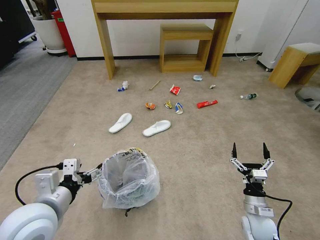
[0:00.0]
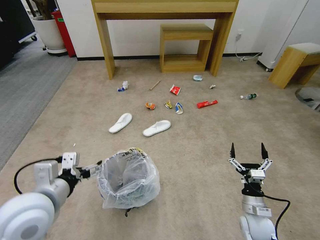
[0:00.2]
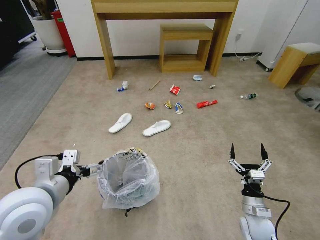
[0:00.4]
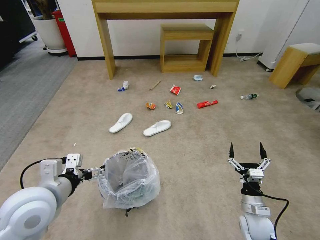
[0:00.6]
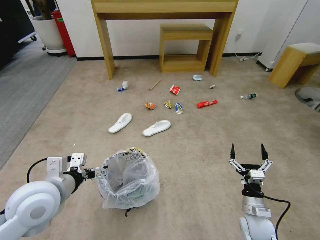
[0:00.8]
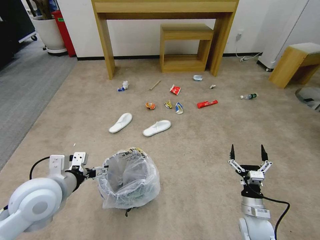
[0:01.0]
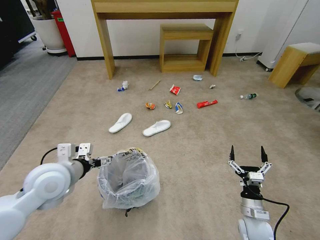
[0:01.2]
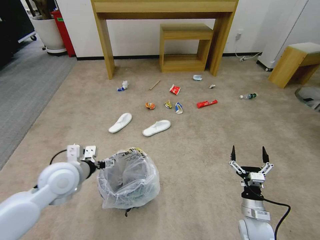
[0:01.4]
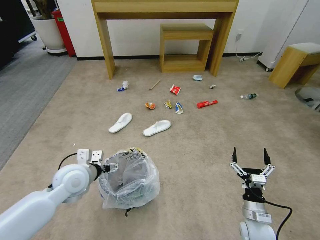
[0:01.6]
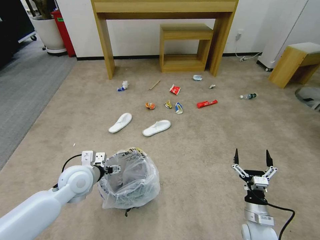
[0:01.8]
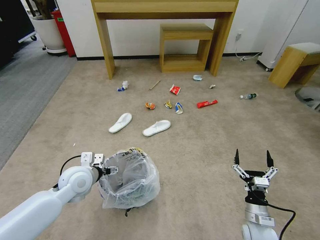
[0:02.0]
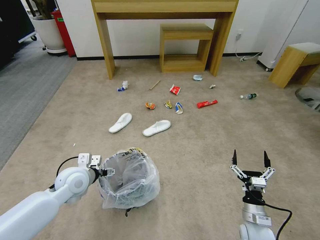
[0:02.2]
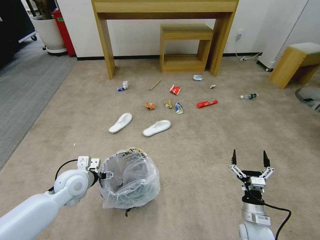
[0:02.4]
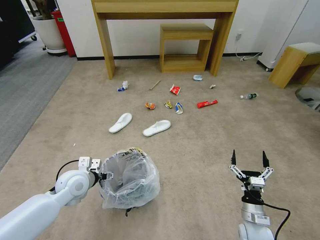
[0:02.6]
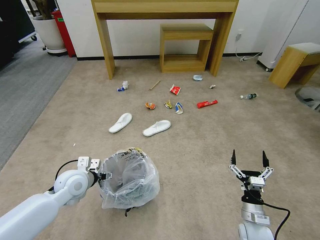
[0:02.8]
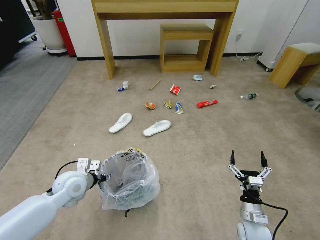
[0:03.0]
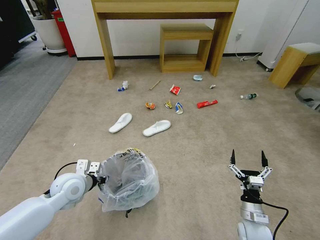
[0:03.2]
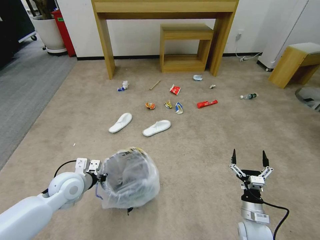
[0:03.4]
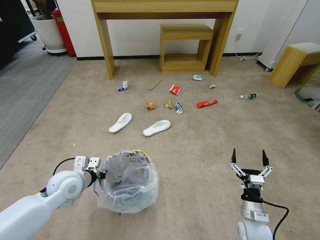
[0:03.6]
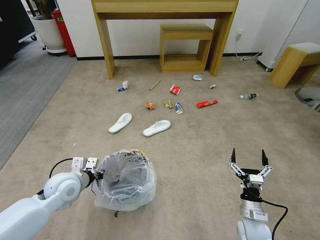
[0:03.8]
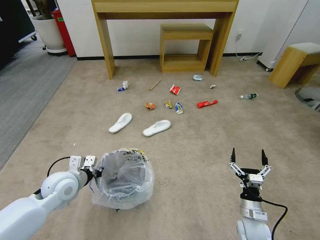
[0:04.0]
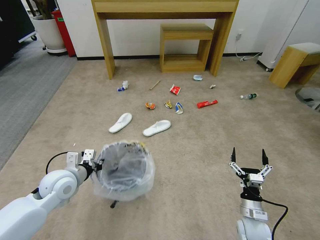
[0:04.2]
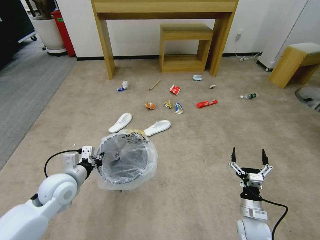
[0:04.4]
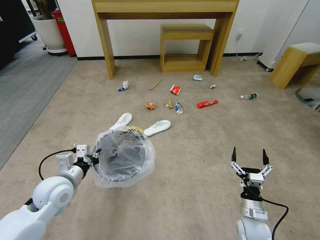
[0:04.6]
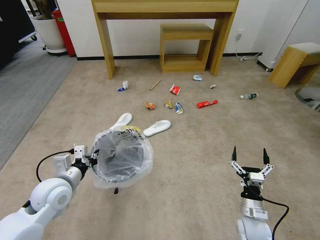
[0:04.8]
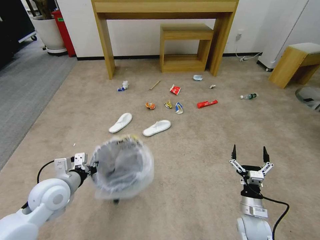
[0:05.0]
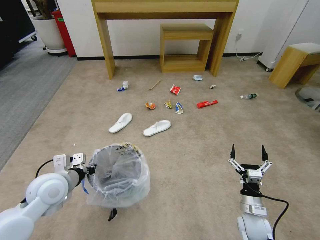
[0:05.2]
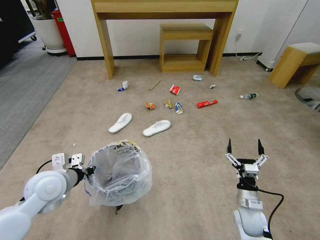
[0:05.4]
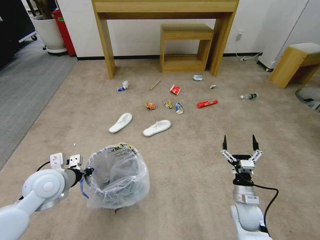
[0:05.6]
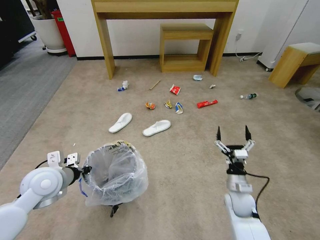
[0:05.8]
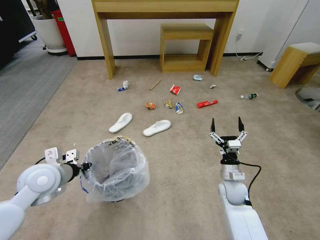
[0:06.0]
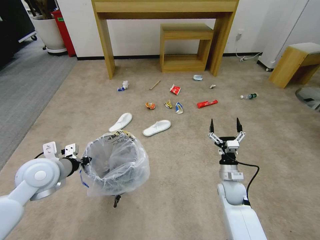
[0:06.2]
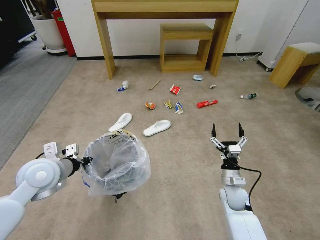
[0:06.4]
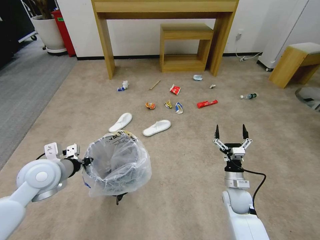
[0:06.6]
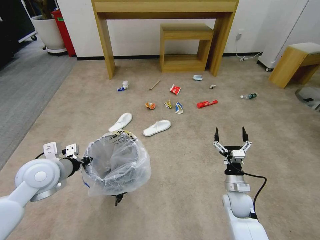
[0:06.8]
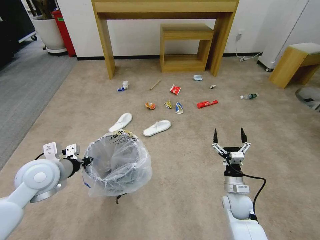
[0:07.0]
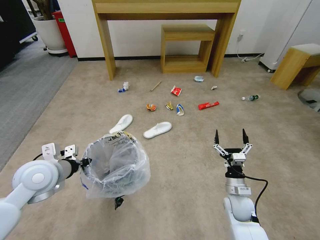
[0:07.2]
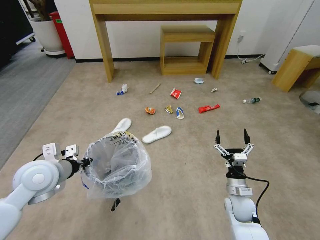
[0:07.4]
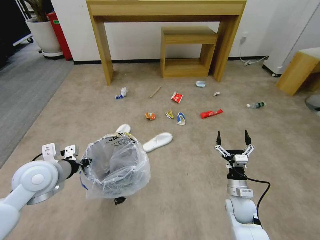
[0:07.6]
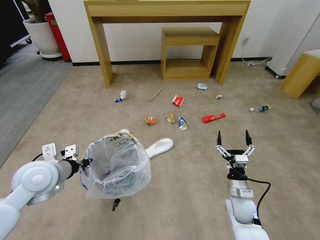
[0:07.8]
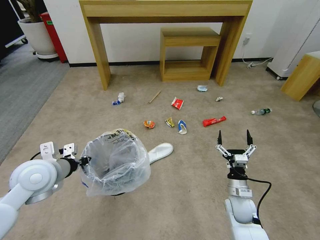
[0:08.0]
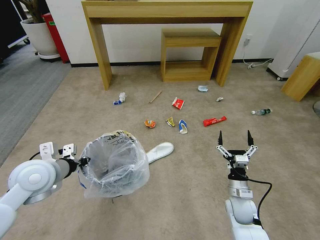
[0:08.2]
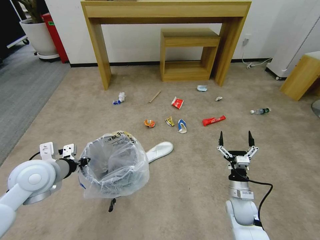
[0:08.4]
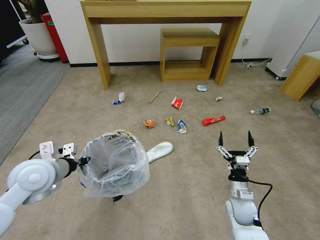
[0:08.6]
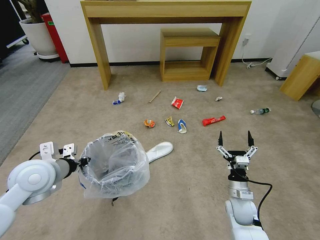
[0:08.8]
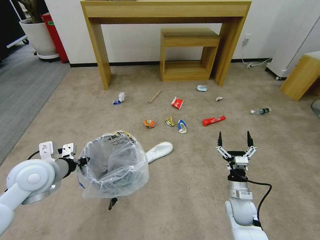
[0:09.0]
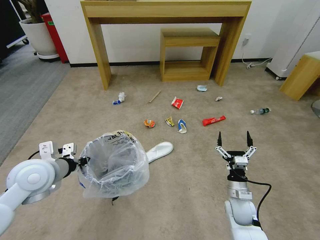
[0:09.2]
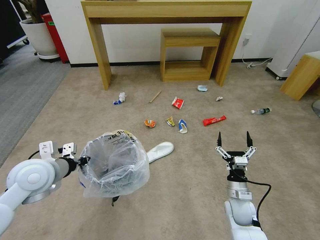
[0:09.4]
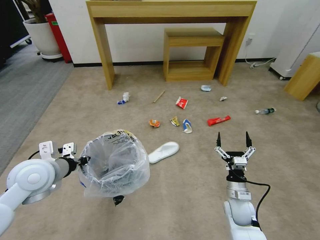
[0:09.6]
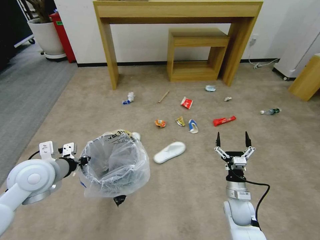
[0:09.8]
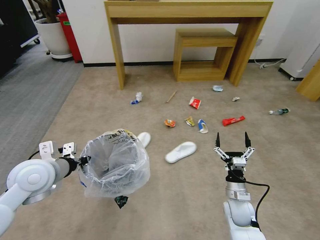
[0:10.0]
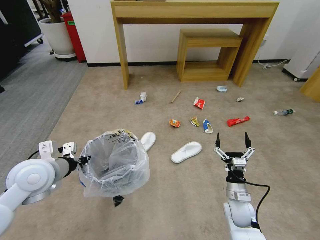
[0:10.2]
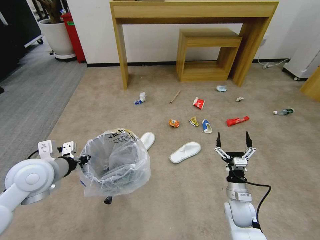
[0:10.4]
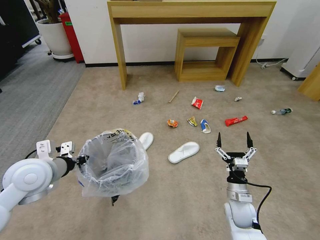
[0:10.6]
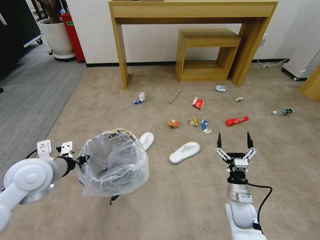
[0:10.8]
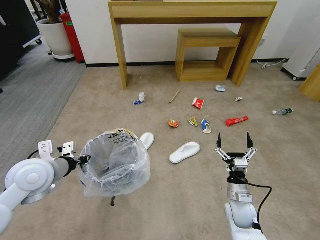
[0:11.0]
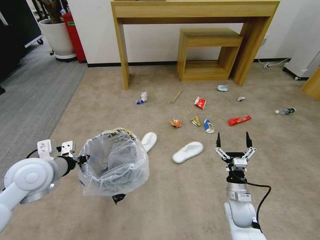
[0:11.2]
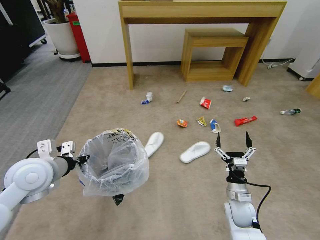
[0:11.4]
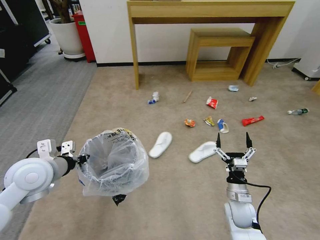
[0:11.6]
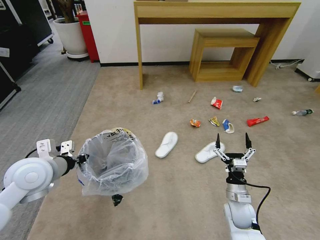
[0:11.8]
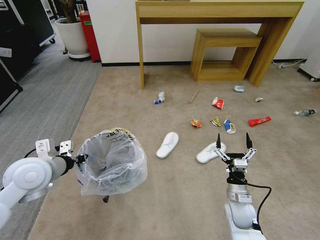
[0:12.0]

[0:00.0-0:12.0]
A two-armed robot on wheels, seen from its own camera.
Task of the whole recording: Pick up the trash bin and place the garbage on the floor into it.
0:00.0 to 0:01.6: The left gripper shifts some 15 cm forward and downward.
0:01.6 to 0:03.0: The left gripper travels downward by approximately 5 cm, and closes.
0:03.0 to 0:04.4: The left gripper closes up.
0:04.4 to 0:06.0: The left gripper moves approximately 5 cm. The right gripper travels forward by some 10 cm.
0:07.6 to 0:09.0: Neither gripper changes place.

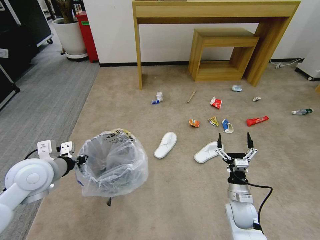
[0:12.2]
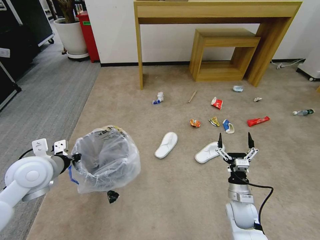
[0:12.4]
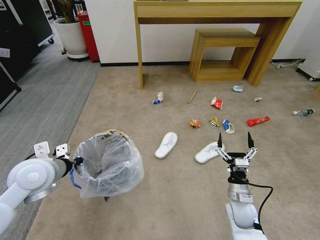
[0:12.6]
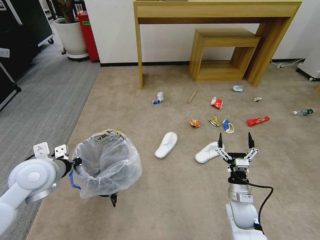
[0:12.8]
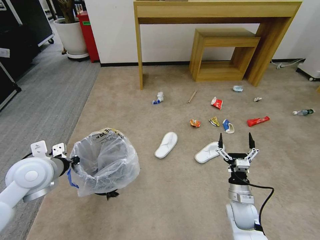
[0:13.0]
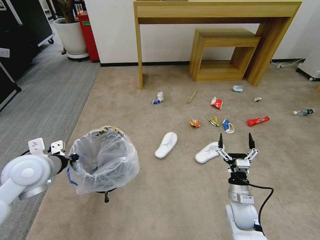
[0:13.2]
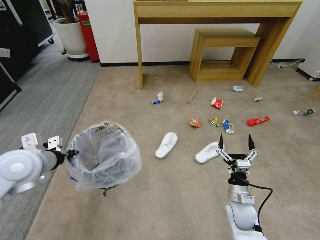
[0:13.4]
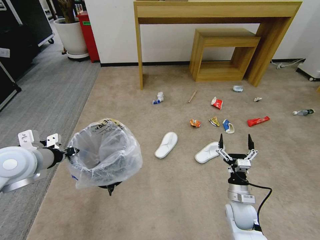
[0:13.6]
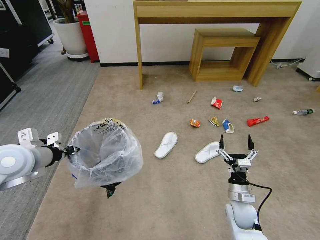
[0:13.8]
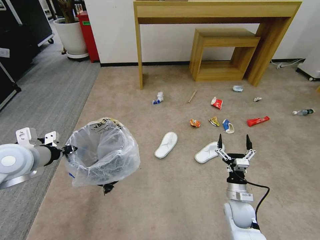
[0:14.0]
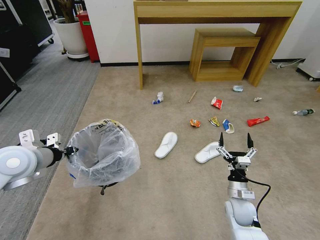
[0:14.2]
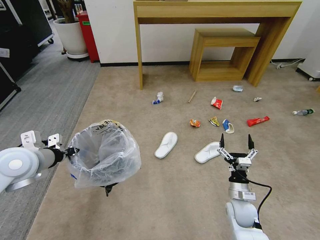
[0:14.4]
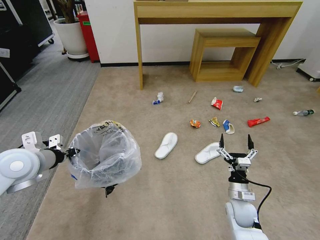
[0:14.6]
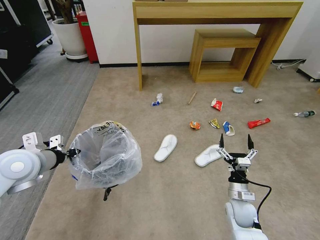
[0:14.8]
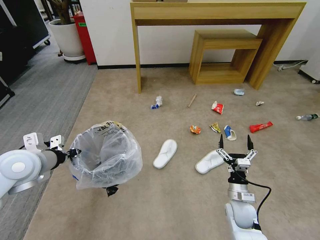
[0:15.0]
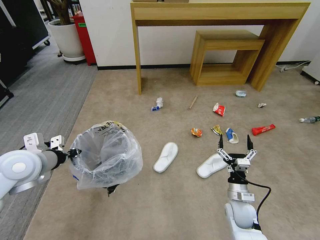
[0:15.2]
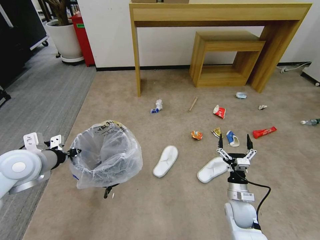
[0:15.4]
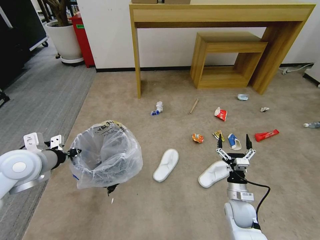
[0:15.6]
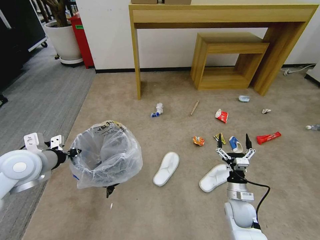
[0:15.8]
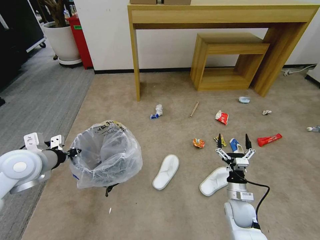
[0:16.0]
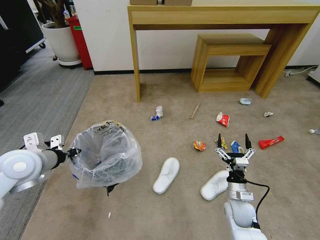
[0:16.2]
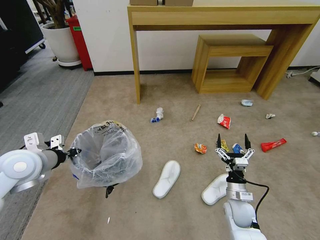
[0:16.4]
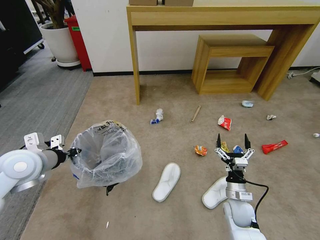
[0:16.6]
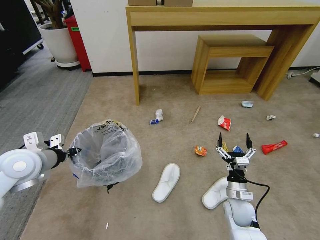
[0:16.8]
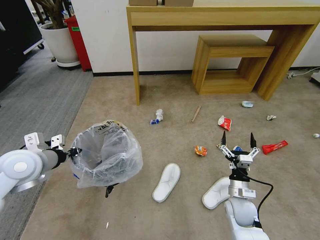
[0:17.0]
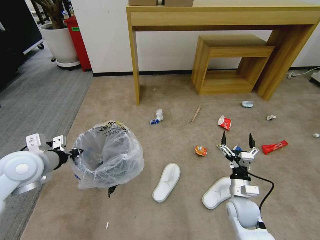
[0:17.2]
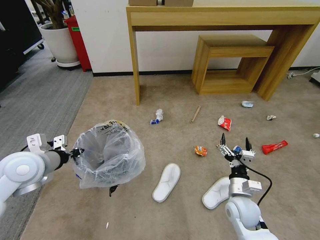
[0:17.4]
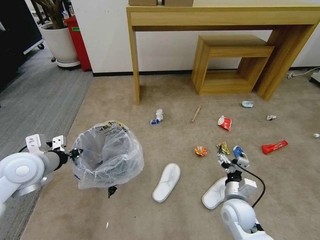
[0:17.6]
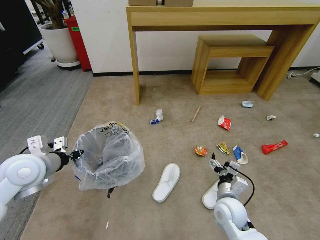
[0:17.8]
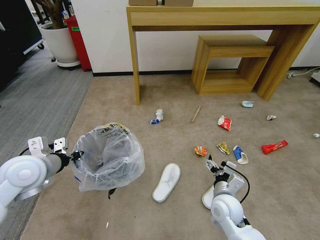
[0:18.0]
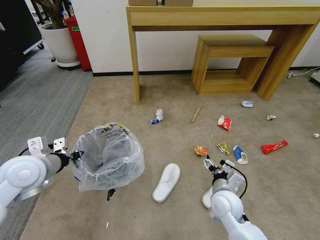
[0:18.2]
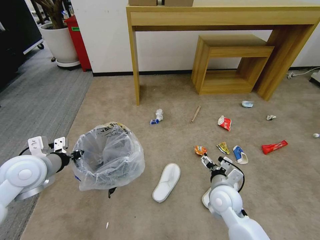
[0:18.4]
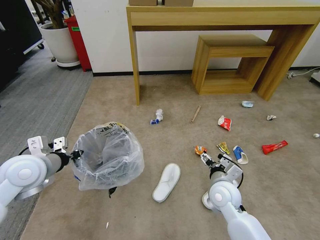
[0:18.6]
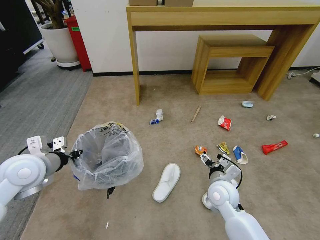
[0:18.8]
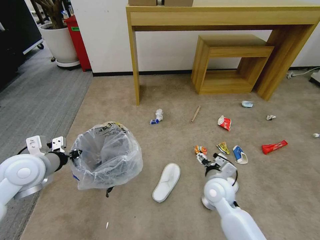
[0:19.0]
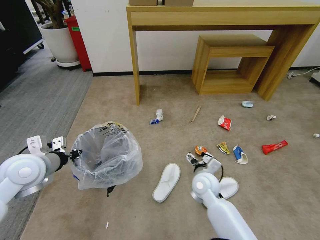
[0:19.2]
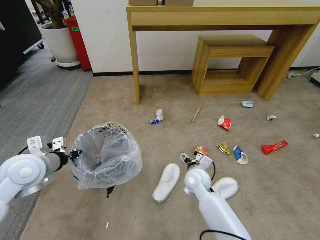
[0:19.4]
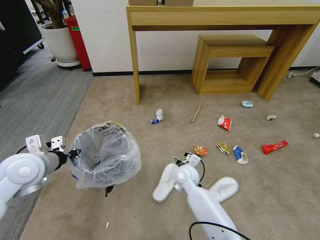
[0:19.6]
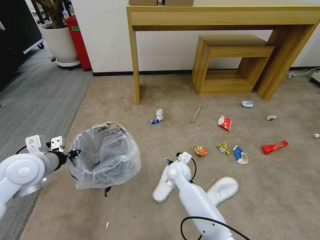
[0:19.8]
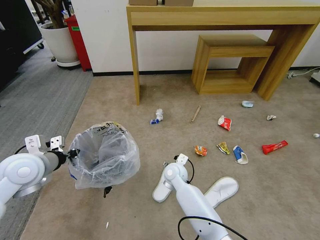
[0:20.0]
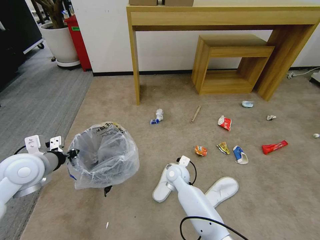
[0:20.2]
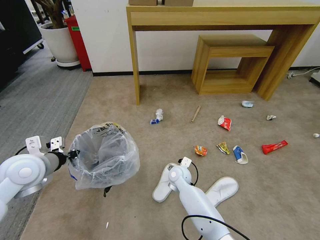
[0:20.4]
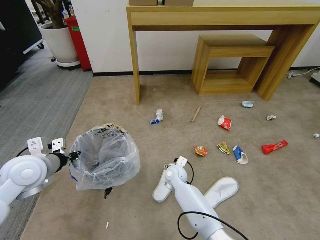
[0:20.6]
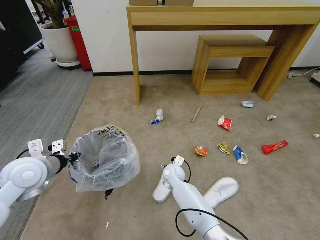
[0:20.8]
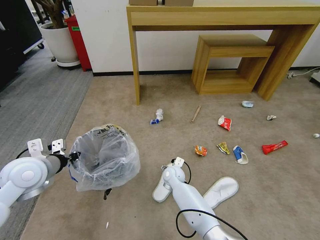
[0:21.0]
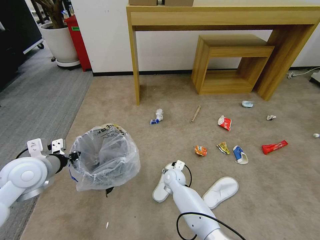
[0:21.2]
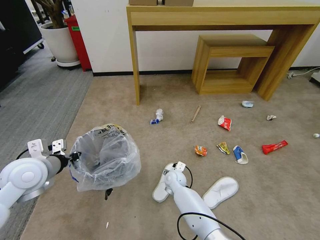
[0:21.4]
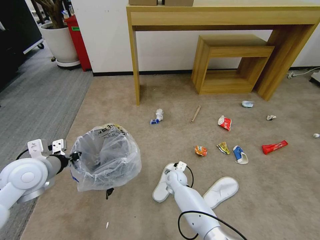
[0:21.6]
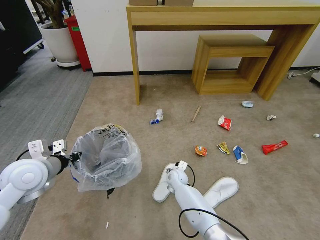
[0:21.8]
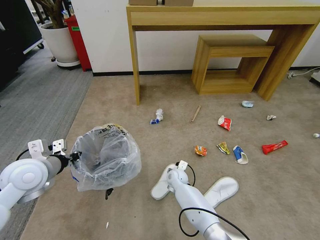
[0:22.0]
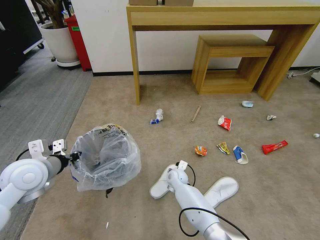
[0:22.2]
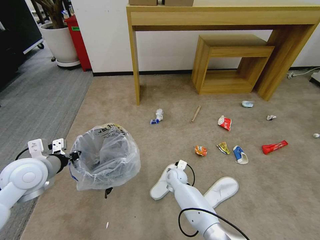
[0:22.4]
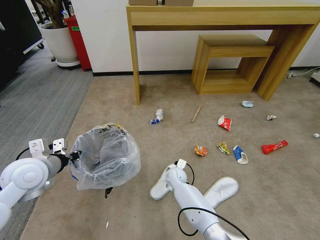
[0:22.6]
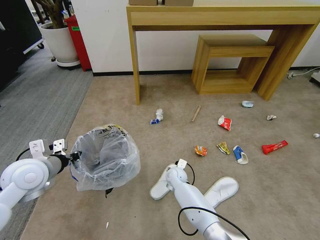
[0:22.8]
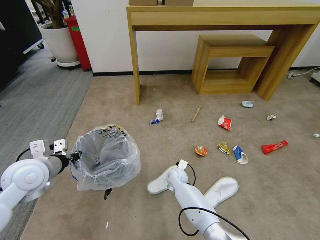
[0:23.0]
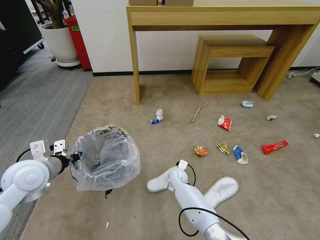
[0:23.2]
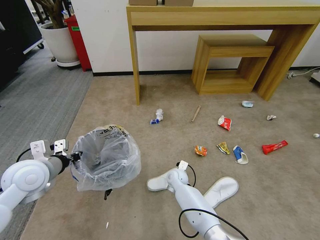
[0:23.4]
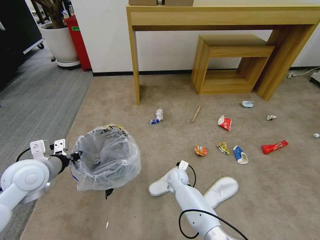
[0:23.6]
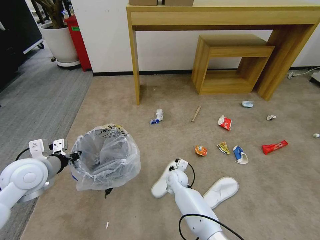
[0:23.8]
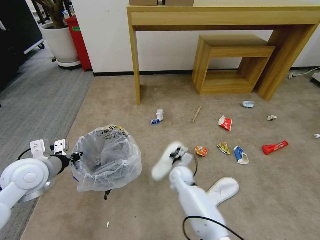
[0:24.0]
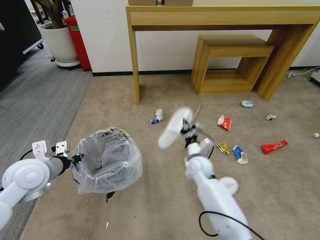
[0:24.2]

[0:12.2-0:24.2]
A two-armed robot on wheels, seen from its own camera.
Task of the whole recording: Pick up the trash bin and place the garbage on the floor into it.
0:12.2 to 0:13.8: The left gripper moves approximately 5 cm.
0:13.8 to 0:15.2: There are only small adjustments of the grippers.
0:16.6 to 0:18.2: The right gripper goes about 10 cm upward and to the left.
0:18.2 to 0:19.8: The right gripper heads to the left and forward, covering approximately 20 cm.
0:19.8 to 0:21.2: The right gripper goes approximately 10 cm downward.
0:21.2 to 0:22.6: The grippers make only small movements.
0:22.6 to 0:24.2: The right gripper is displaced upward and to the right by roughly 15 cm, and closes.
